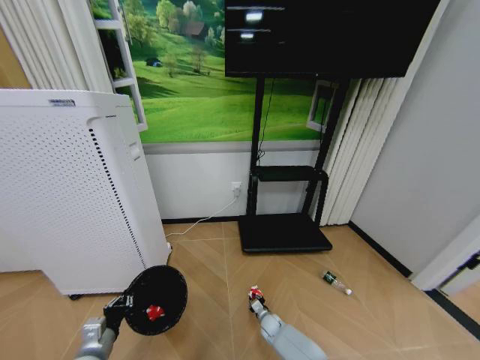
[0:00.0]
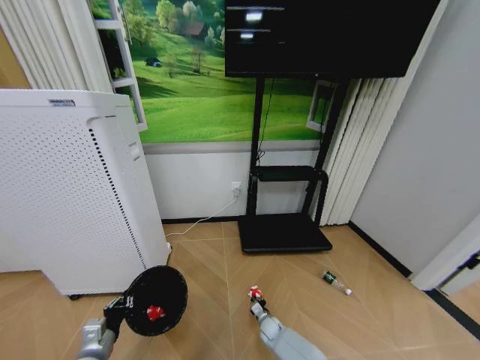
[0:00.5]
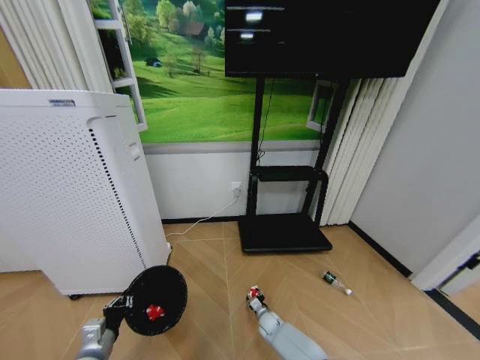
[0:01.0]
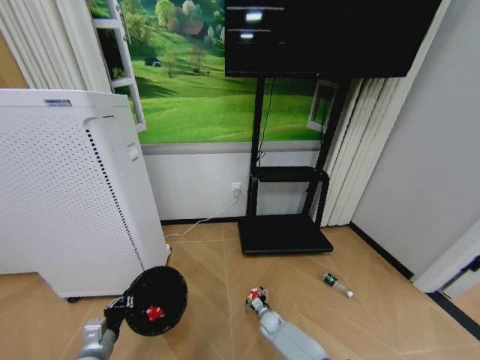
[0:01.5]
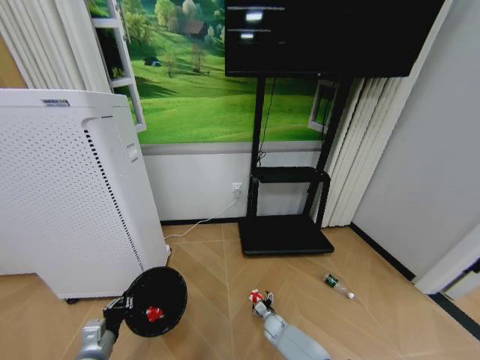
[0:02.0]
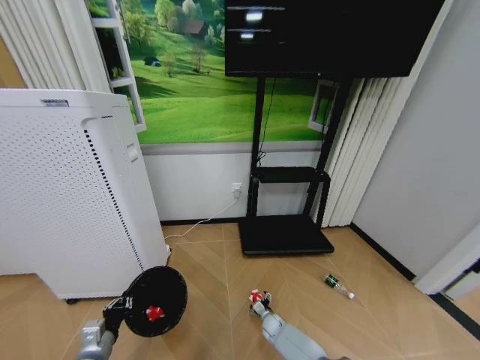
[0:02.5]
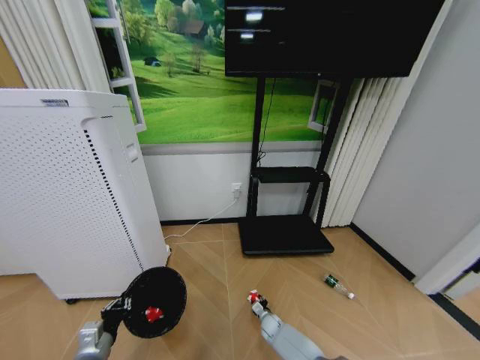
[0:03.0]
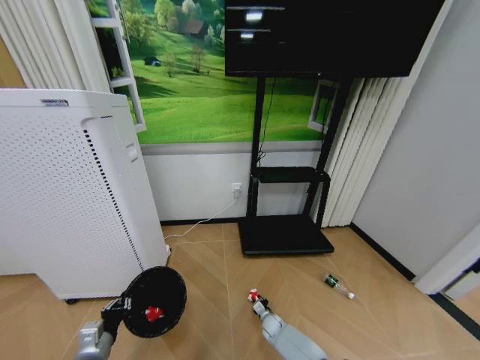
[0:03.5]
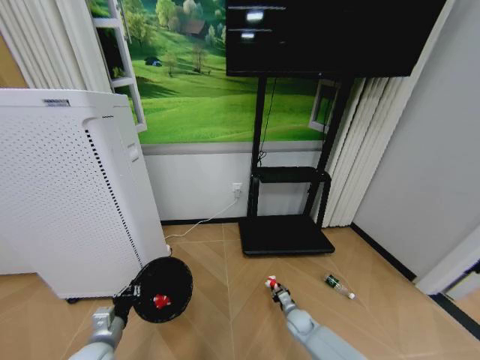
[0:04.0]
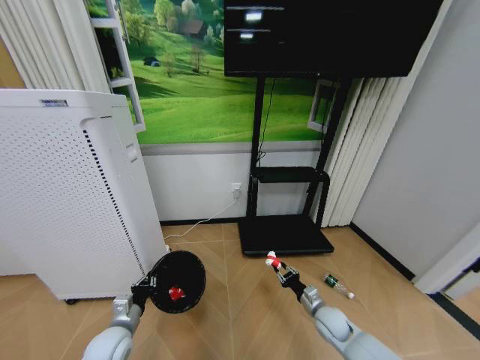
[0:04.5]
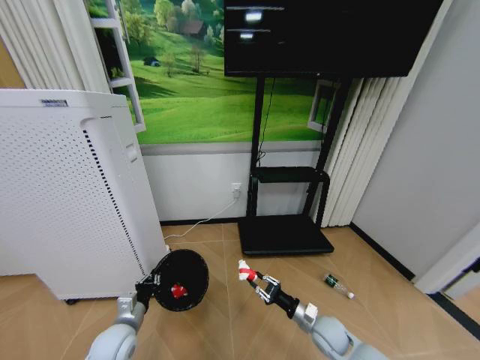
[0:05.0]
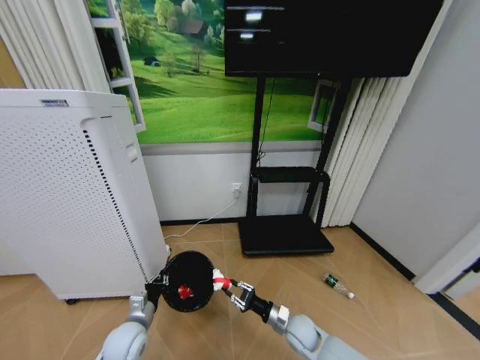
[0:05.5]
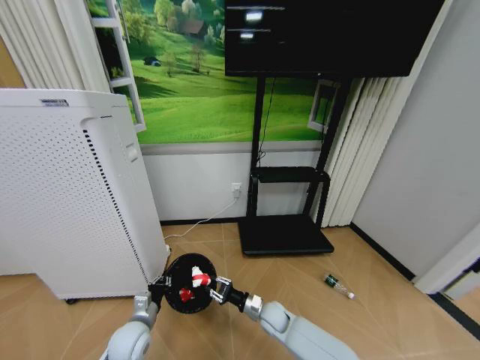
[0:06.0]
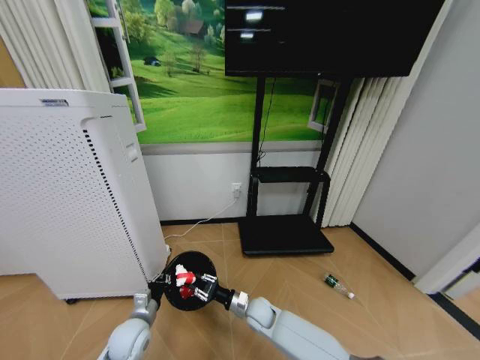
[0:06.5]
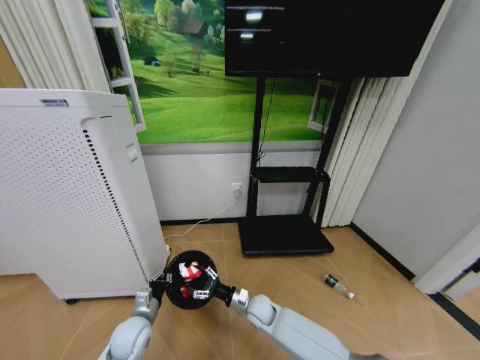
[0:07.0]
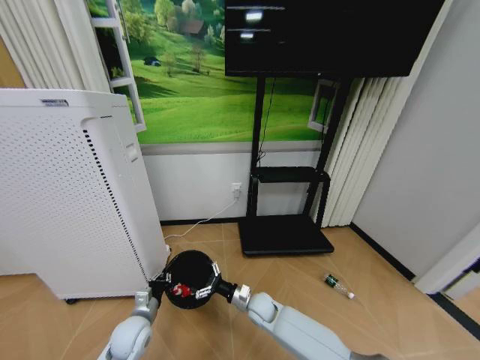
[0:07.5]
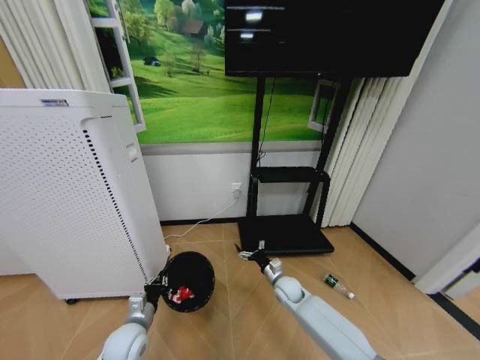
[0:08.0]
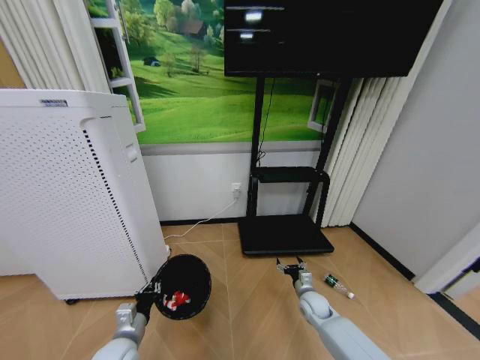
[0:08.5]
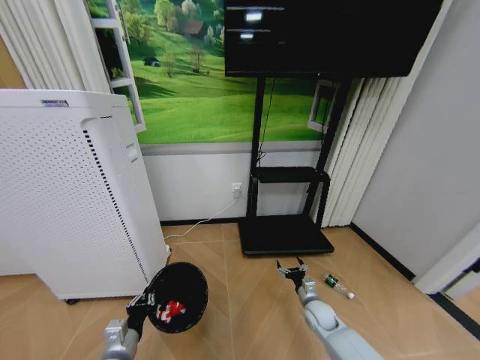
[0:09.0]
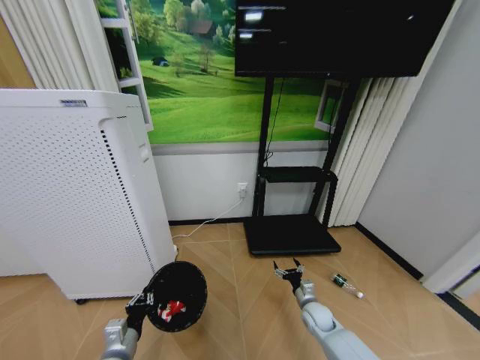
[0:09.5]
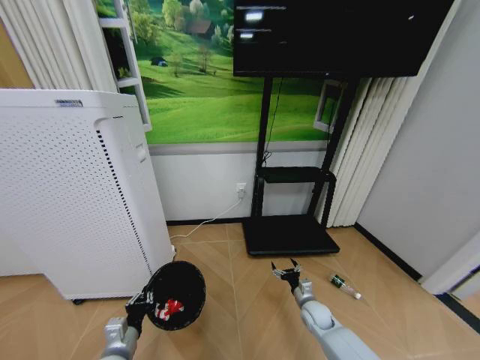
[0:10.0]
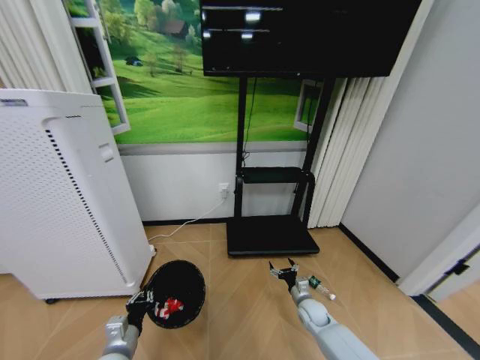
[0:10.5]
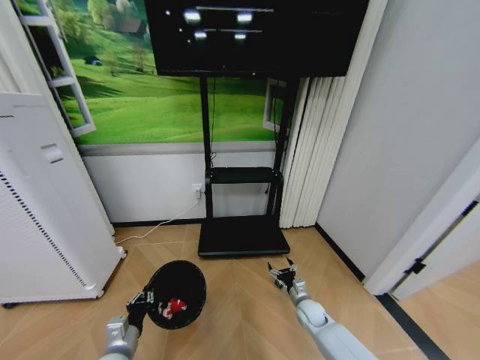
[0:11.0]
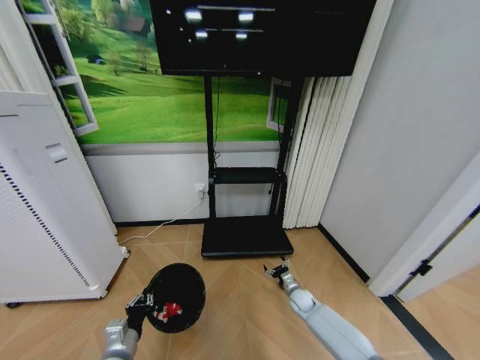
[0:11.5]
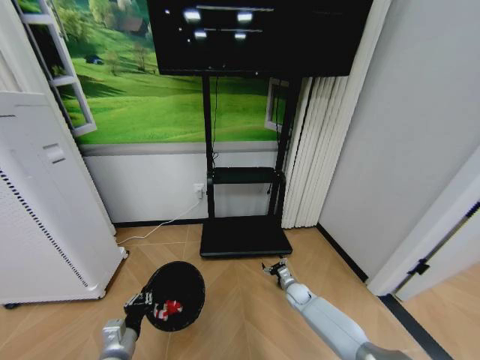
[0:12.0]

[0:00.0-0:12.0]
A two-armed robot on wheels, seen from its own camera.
Task of the whole recording: Pick up the trash bin and place the garbage on the floor into it.
0:00.0 to 0:02.0: The right gripper opens its fingers.
0:02.0 to 0:04.0: The right gripper moves to the right and upward, approximately 10 cm, and closes.
0:04.0 to 0:06.0: The right gripper goes about 15 cm to the left and upward. The left gripper travels to the right and forward by some 10 cm.
0:06.0 to 0:08.0: The right gripper goes approximately 10 cm to the right and forward, and opens.
0:08.0 to 0:10.0: The left gripper goes roughly 5 cm backward. Meanwhile the right gripper heads to the right, backward and downward, covering about 10 cm.
0:10.0 to 0:12.0: The right gripper is displaced forward by about 10 cm.

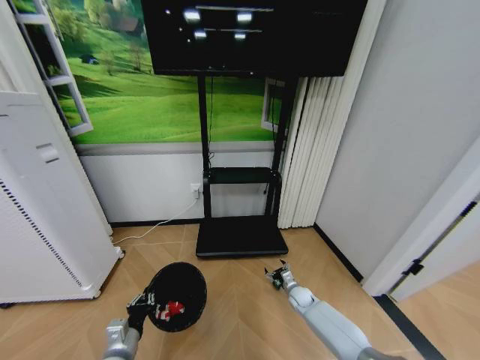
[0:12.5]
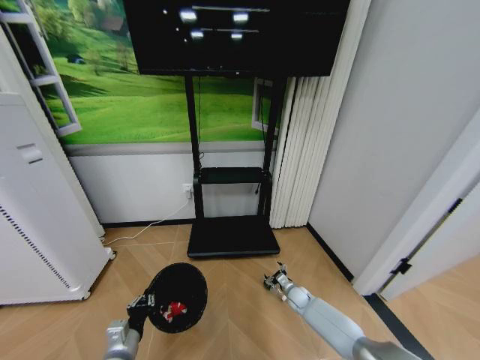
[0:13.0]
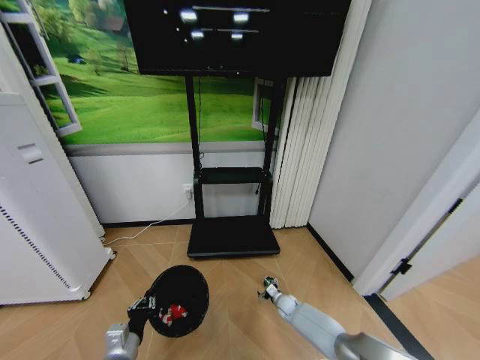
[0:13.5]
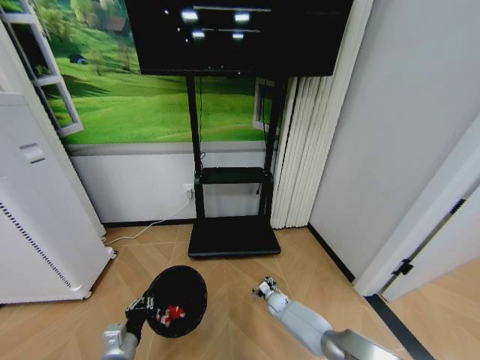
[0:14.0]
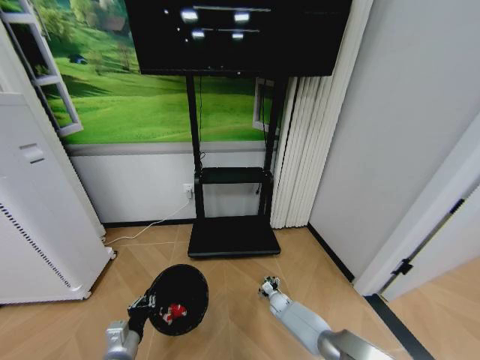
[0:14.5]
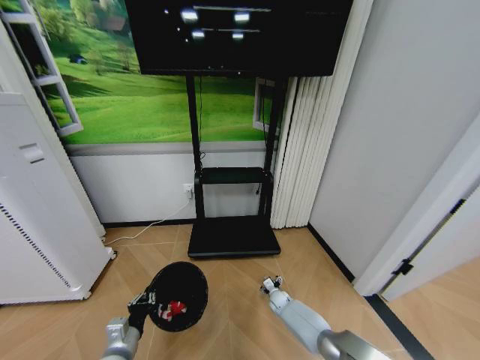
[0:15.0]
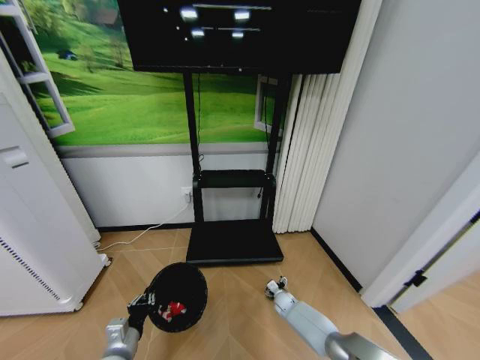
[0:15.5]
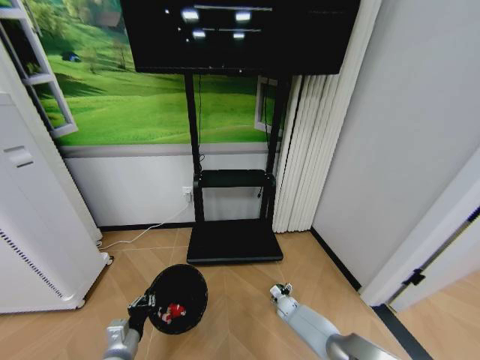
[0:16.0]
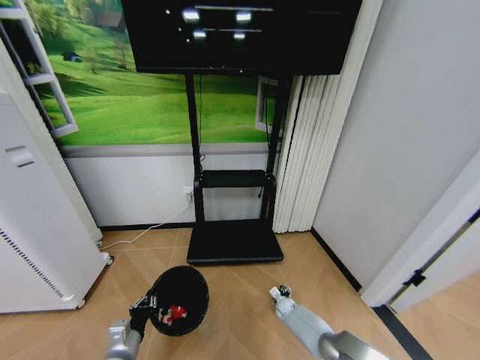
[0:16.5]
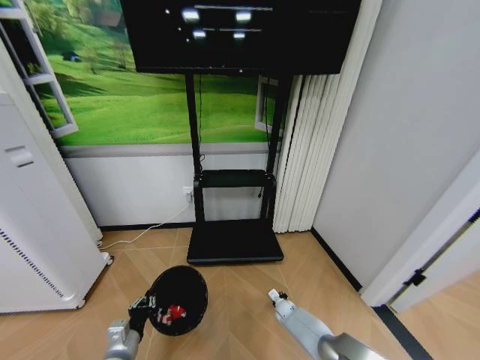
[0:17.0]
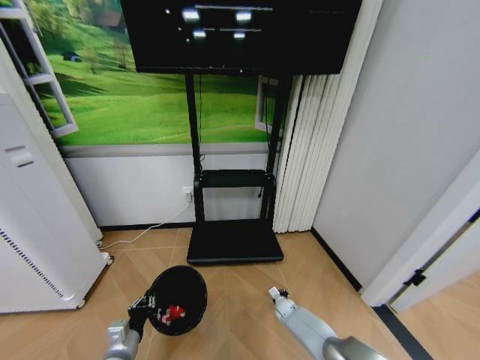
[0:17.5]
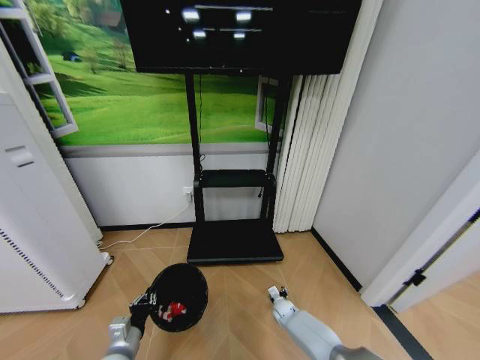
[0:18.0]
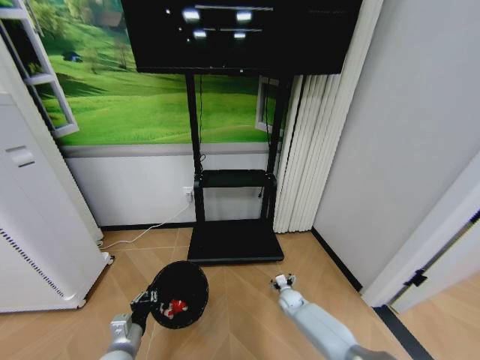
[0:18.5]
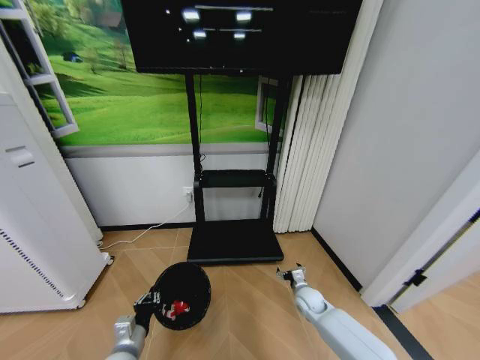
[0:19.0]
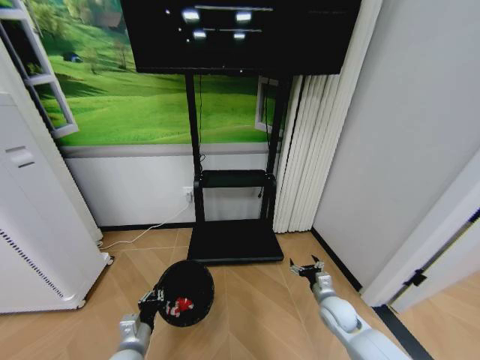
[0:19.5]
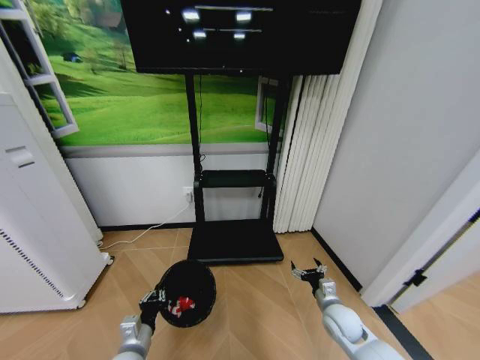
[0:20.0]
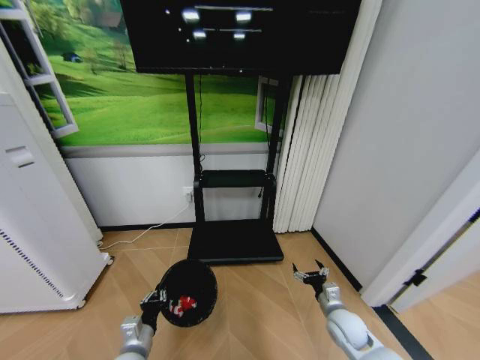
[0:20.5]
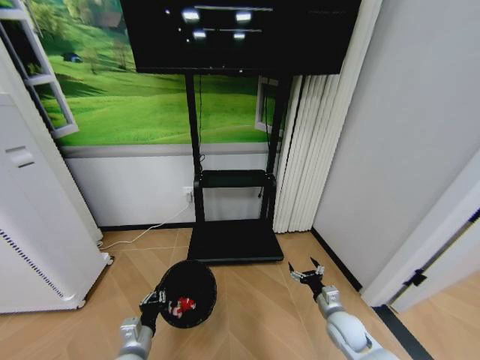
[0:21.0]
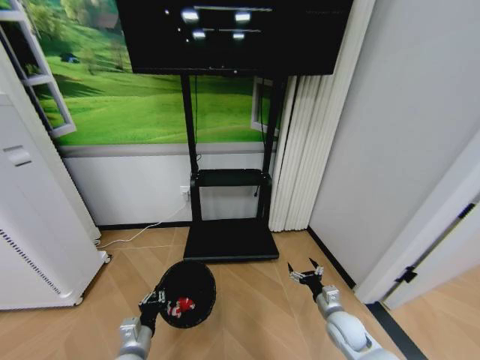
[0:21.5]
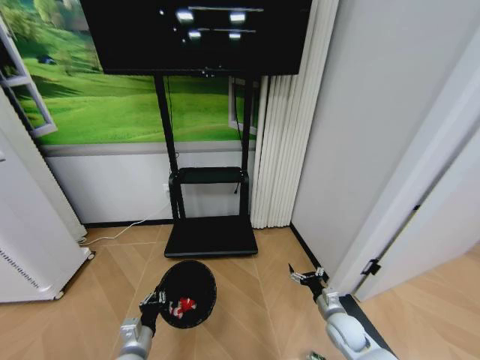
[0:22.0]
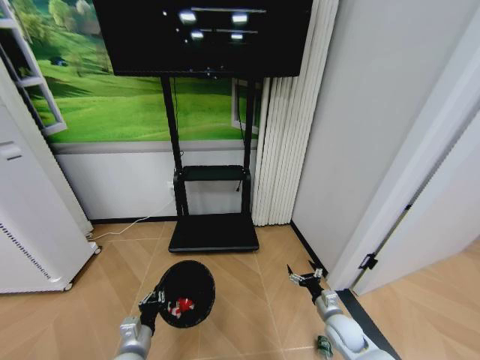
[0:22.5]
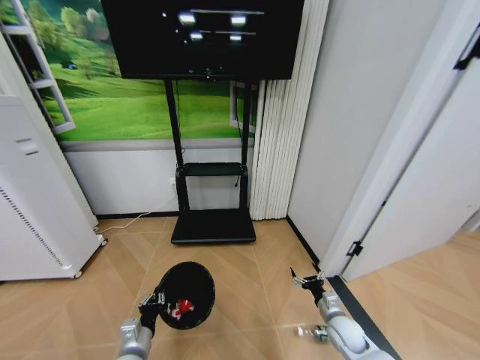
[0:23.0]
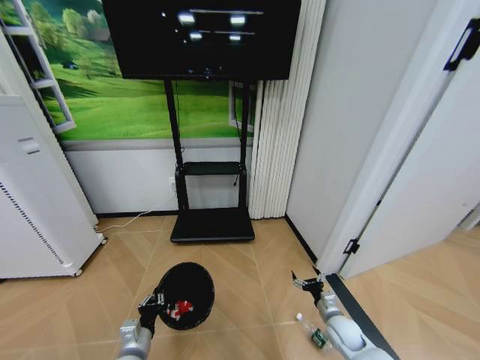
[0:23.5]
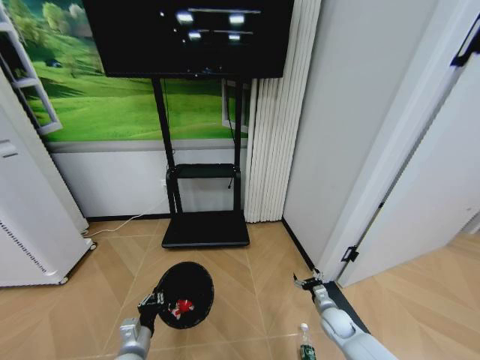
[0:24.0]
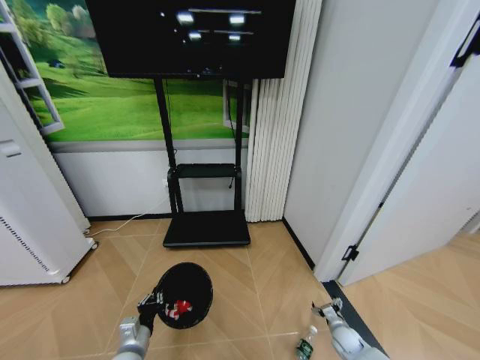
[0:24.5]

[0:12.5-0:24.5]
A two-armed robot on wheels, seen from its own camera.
Task of the whole recording: Pick up the trash bin and place the garbage on the floor into it.
0:12.5 to 0:14.5: The right gripper moves to the left and downward, about 10 cm.
0:14.5 to 0:16.5: The grippers stay close to where they were, moving slightly.
0:16.5 to 0:18.5: The right gripper is displaced upward by approximately 5 cm, and closes and opens again.
0:18.5 to 0:20.5: The right gripper travels upward, backward and to the right by about 20 cm.
0:22.5 to 0:24.5: The right gripper is displaced downward and to the right by approximately 15 cm.

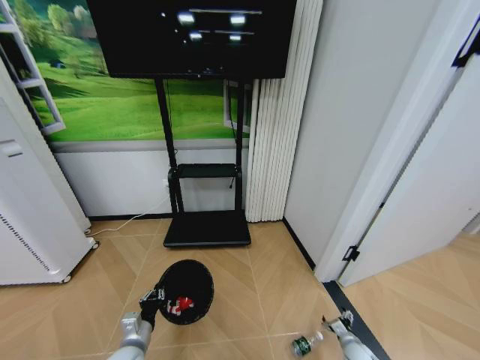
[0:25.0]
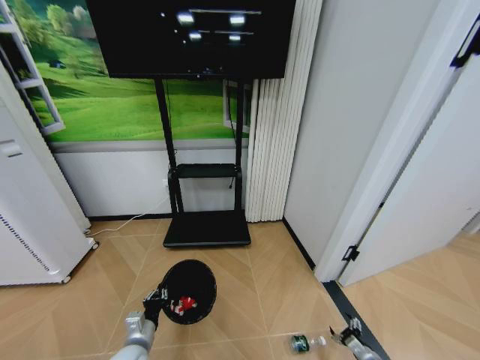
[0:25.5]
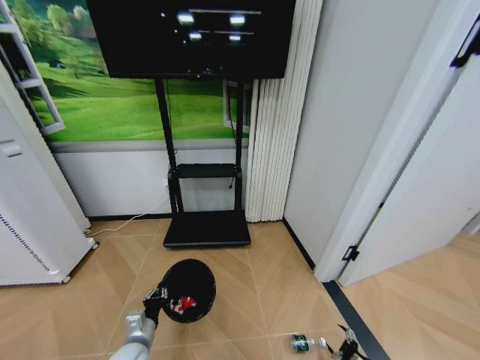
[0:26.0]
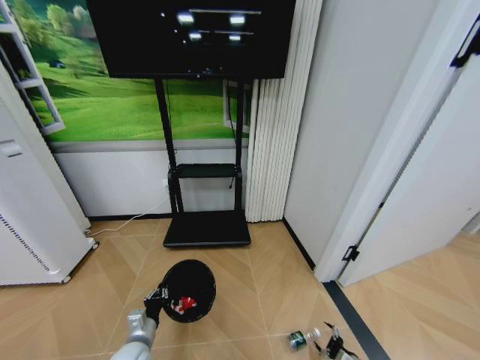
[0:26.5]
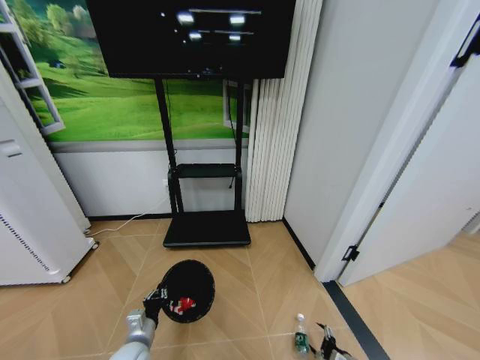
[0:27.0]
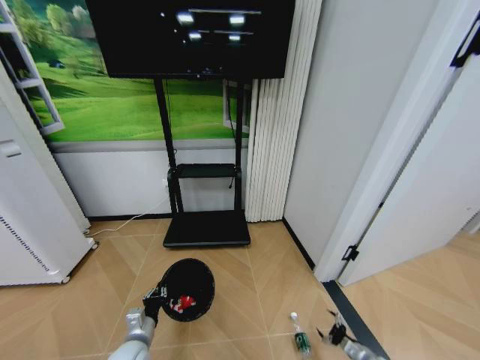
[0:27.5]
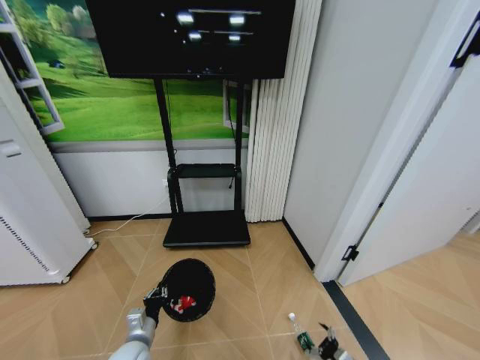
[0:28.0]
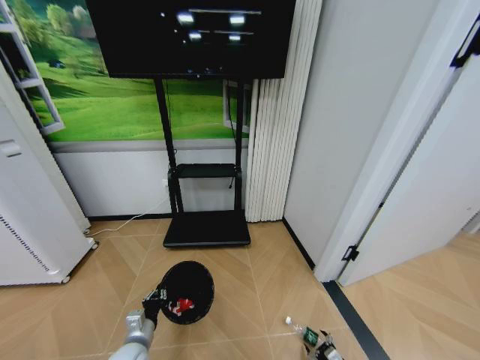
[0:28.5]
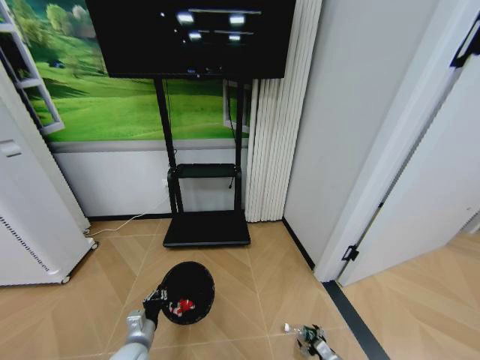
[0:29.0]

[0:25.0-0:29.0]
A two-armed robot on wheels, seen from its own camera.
Task of the whole recording: Pick up the trash bin and place the garbage on the floor into it.
0:25.0 to 0:27.0: The right gripper shifts some 5 cm backward.
0:27.0 to 0:29.0: The right gripper moves to the left, approximately 5 cm.
